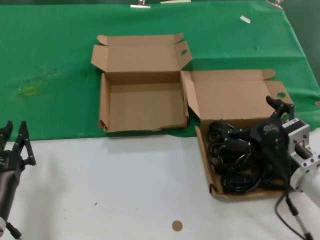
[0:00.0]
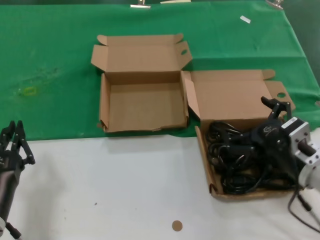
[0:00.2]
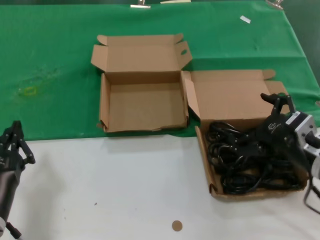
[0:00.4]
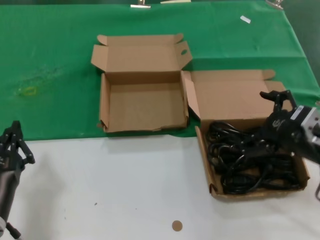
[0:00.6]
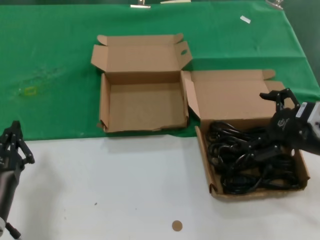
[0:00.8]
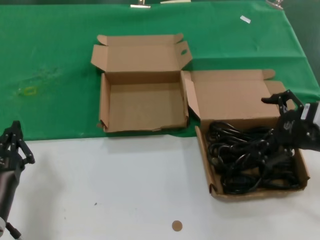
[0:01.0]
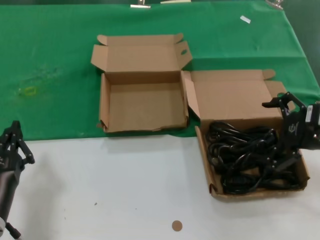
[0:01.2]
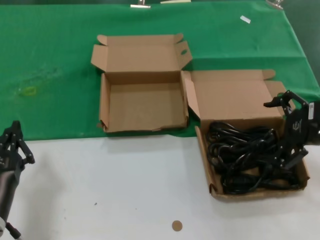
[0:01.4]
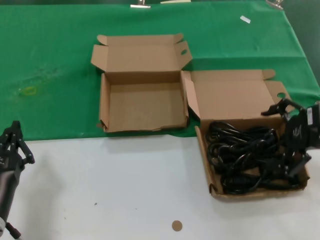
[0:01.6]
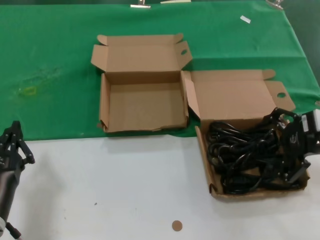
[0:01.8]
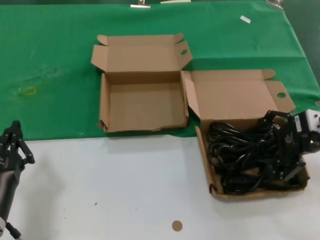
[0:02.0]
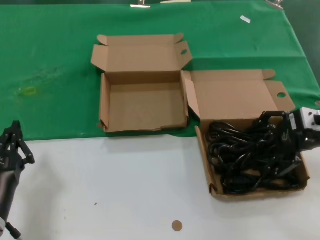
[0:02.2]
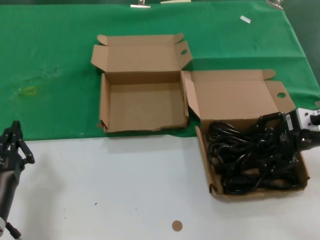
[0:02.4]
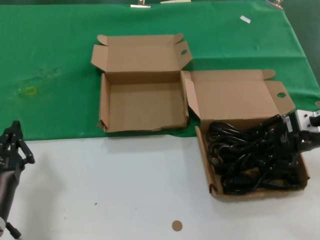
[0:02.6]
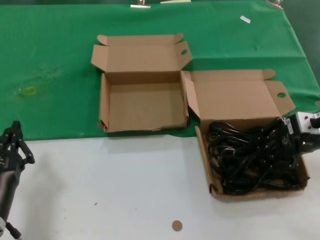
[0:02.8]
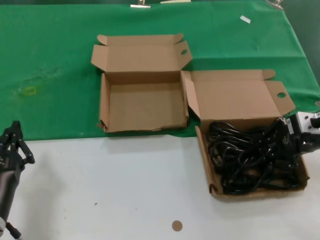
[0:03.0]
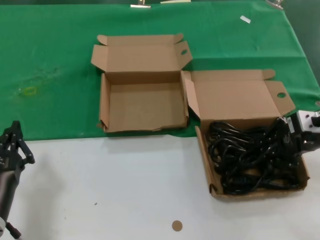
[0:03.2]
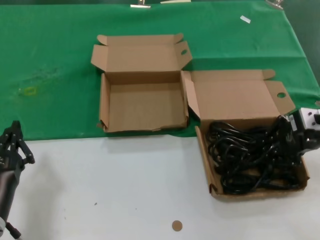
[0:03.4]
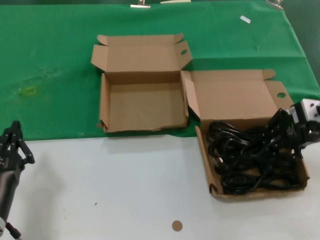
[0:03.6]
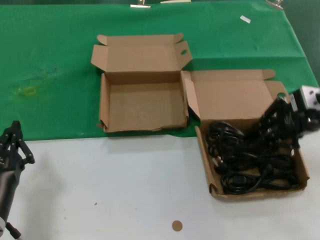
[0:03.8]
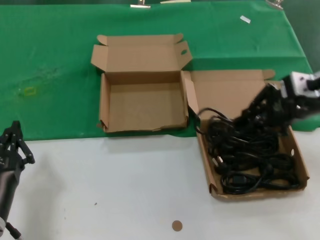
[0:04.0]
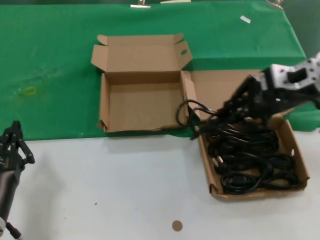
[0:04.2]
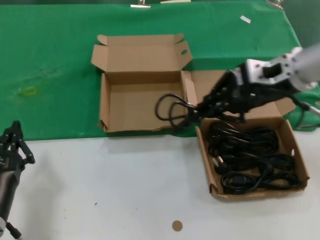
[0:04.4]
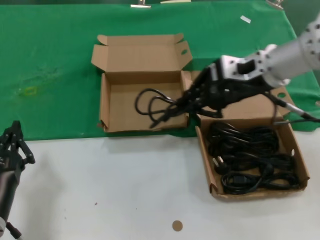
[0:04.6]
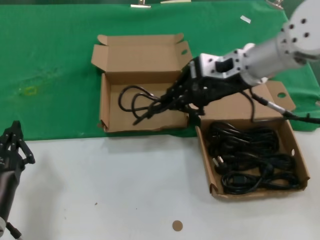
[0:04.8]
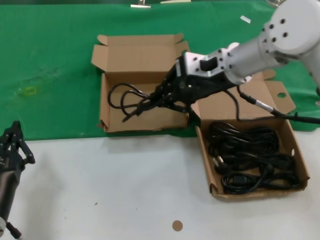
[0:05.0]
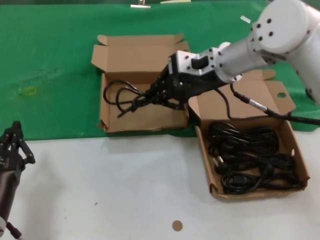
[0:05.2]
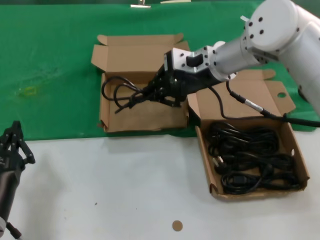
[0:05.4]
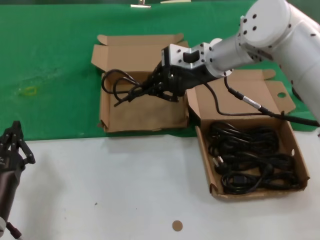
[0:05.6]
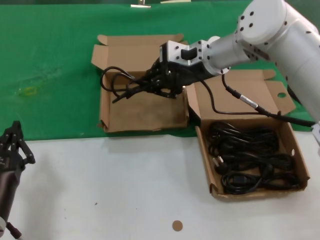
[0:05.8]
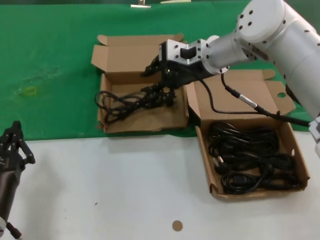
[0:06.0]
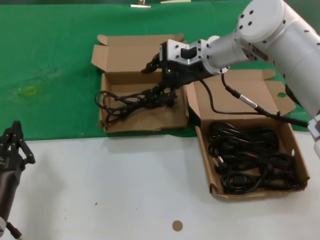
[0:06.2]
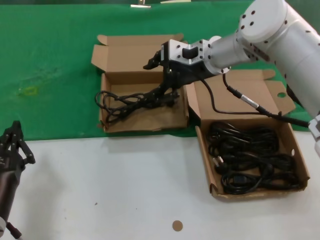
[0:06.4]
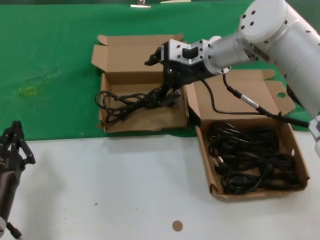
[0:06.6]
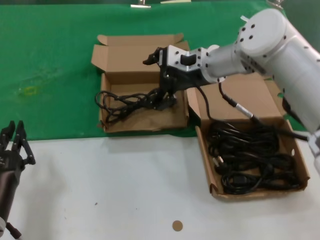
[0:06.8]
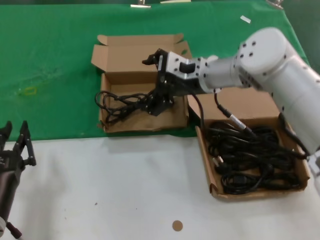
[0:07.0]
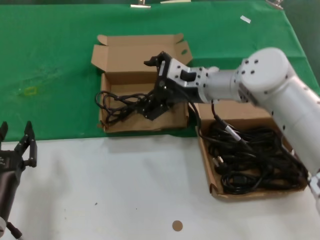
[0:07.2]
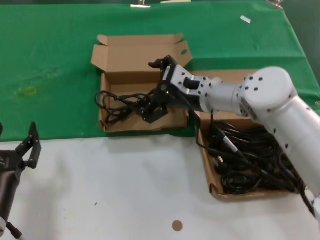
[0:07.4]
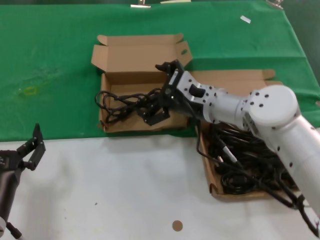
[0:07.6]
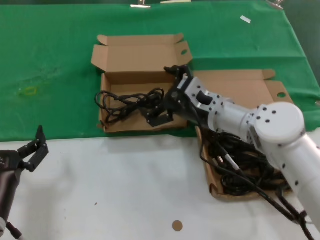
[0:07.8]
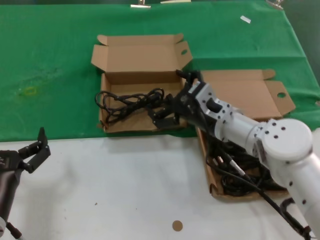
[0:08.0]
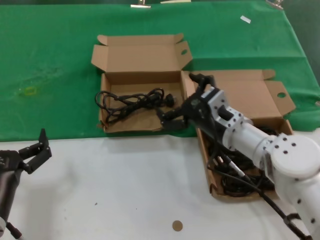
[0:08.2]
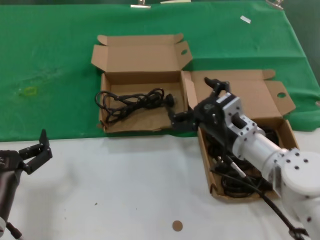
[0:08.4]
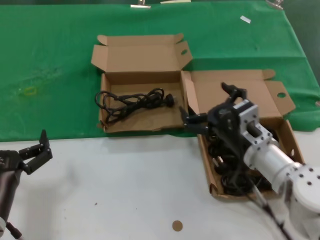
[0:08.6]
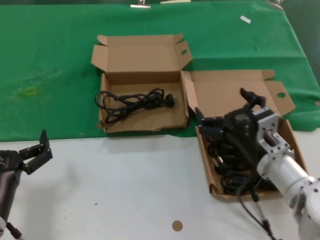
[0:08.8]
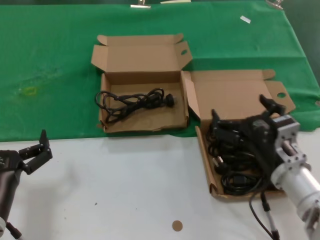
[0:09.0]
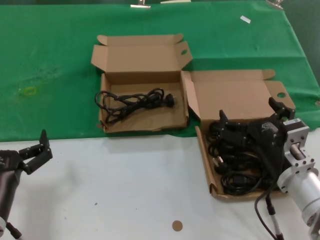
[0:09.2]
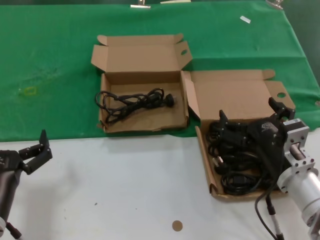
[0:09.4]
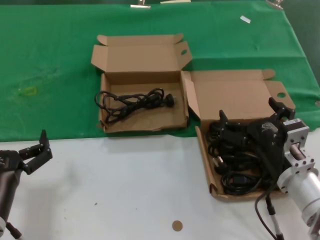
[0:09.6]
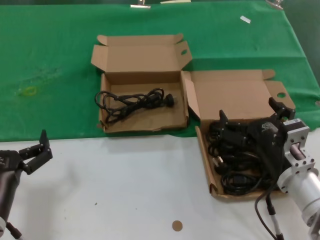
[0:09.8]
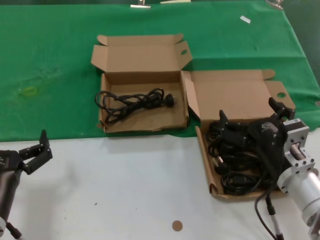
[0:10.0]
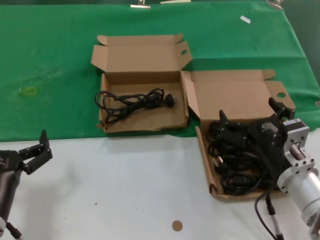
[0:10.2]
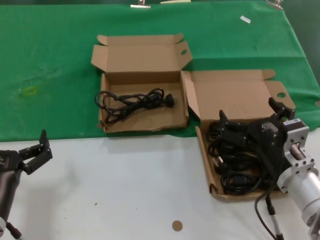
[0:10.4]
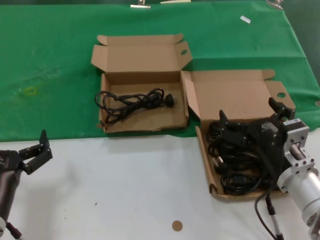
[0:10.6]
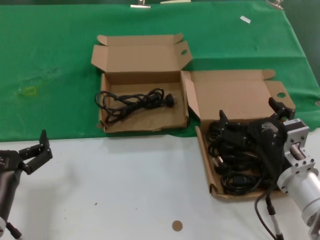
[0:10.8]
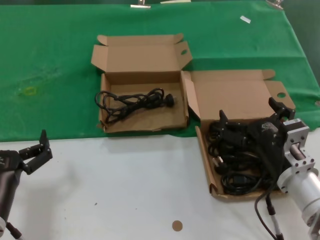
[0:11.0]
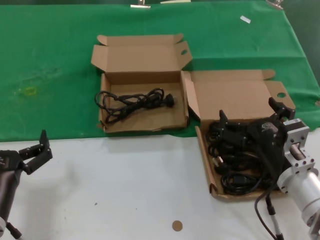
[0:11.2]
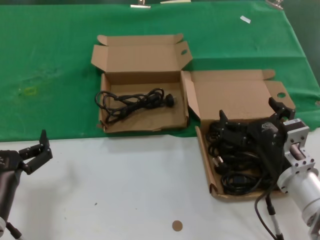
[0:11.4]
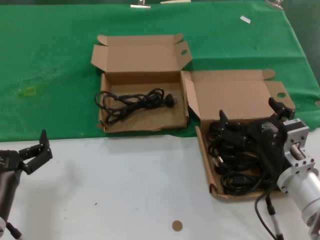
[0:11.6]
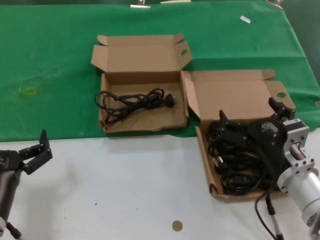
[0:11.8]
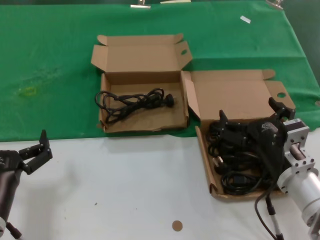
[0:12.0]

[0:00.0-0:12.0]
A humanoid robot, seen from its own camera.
Task of the whole recording: take the parts from the box containing them and put them into an empty box.
Step, 0:00.0 to 0:03.0: Grasp the data cable.
Step, 0:03.2 to 0:06.0: Place the data cable in the another box.
0:00.0 to 0:01.6: The right hand goes about 20 cm to the right, upward and forward.
0:01.6 to 0:03.0: The hands stay close to where they were, moving slightly.
0:03.0 to 0:04.4: The right hand travels to the left and upward by approximately 15 cm.
0:04.4 to 0:06.0: The right hand moves to the left and forward, about 15 cm.
0:06.0 to 0:07.6: The right hand moves downward and backward, roughly 15 cm.
0:07.6 to 0:09.0: The right hand travels backward, downward and to the right by roughly 20 cm.
0:09.0 to 0:10.4: The hands make only small movements.
0:10.4 to 0:12.0: Both hands stay put.

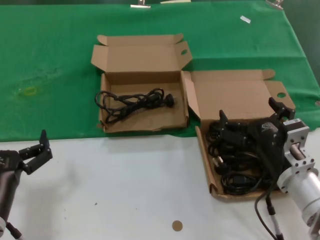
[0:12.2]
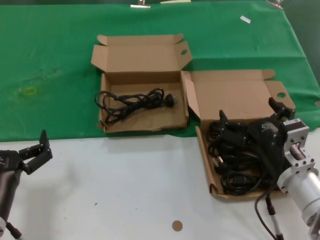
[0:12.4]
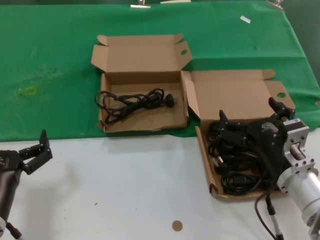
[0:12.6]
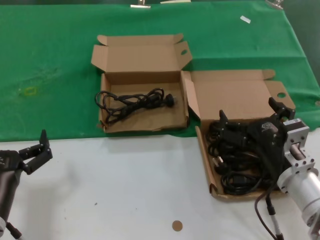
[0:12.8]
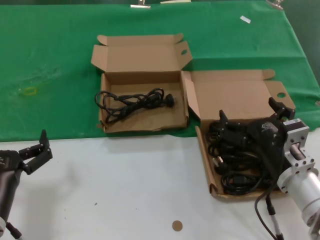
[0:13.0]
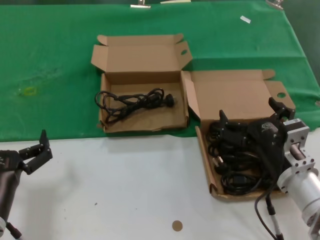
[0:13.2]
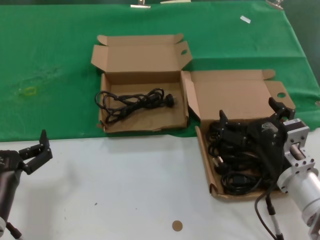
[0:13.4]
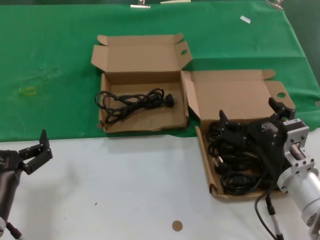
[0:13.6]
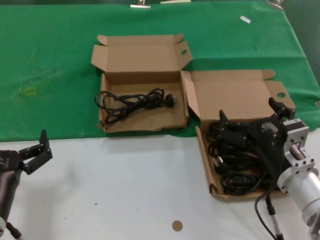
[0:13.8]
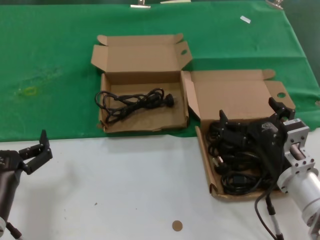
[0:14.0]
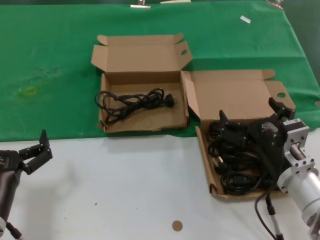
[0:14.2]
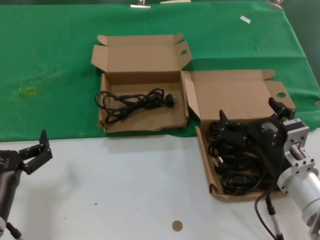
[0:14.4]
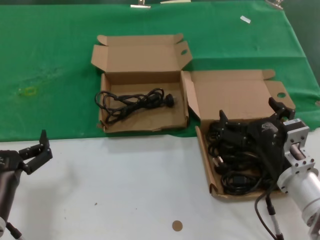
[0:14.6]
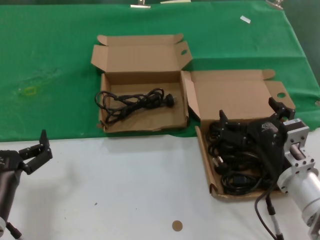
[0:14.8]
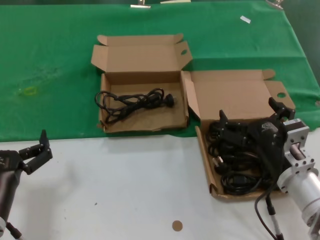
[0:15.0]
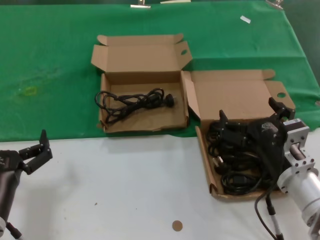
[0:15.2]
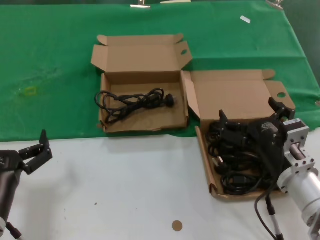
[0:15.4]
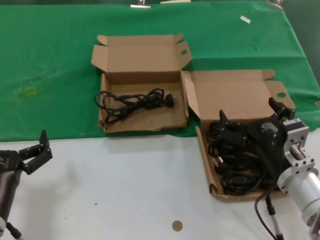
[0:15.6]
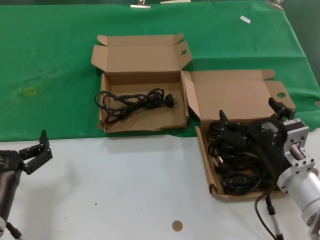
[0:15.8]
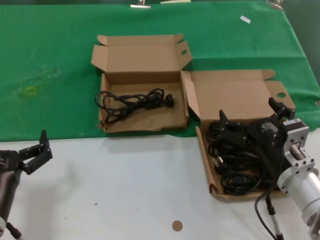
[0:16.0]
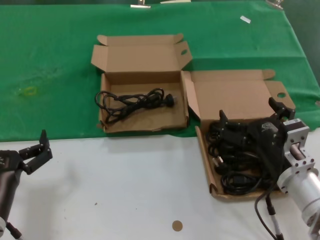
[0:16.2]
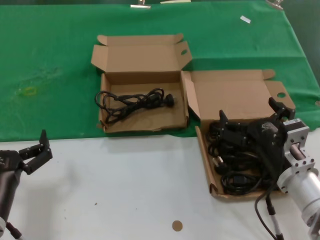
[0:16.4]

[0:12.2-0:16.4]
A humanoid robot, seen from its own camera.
Task of the whole recording: take the parts from the box containing them and put them into an empty box.
0:12.2 to 0:16.4: Neither hand changes place.

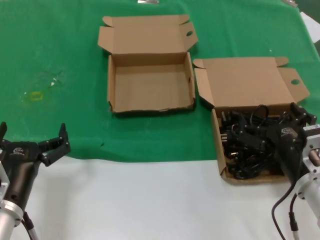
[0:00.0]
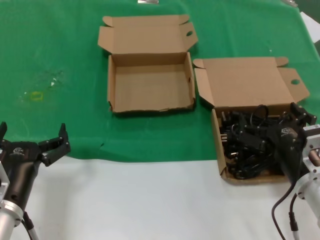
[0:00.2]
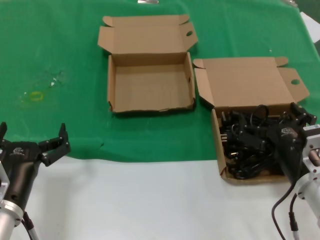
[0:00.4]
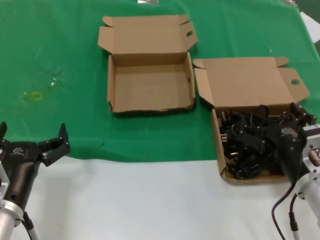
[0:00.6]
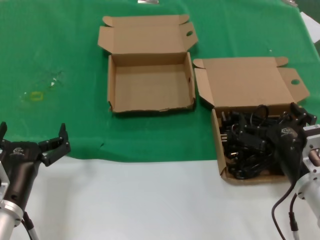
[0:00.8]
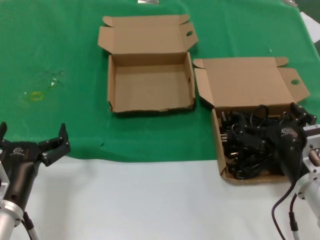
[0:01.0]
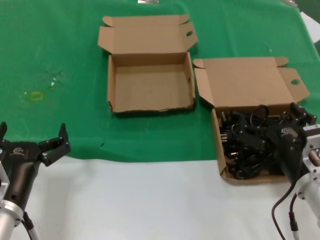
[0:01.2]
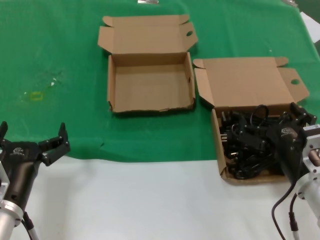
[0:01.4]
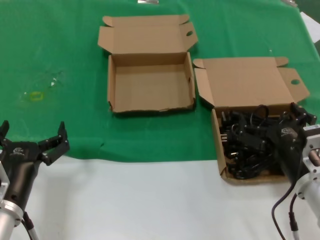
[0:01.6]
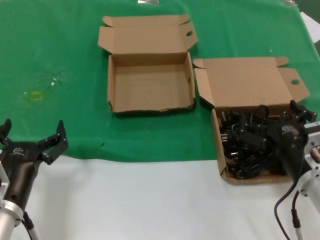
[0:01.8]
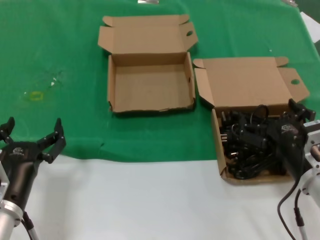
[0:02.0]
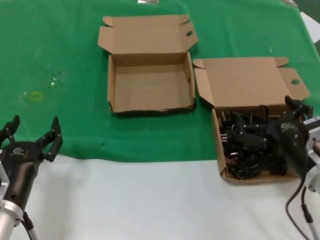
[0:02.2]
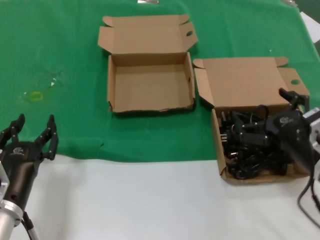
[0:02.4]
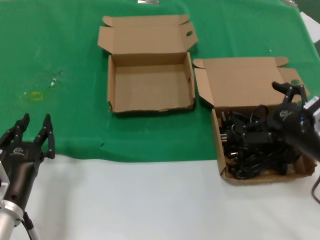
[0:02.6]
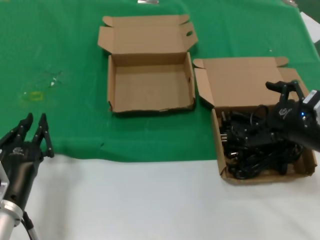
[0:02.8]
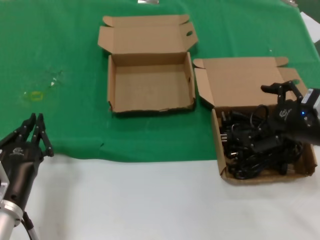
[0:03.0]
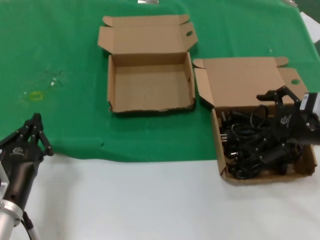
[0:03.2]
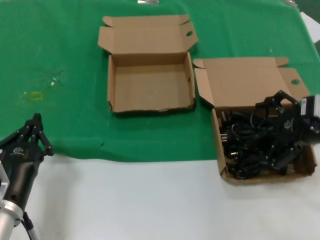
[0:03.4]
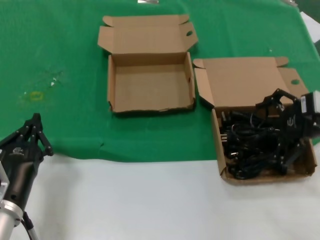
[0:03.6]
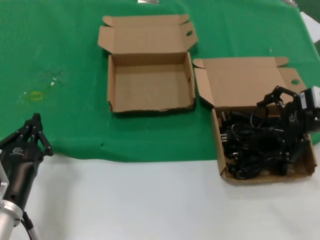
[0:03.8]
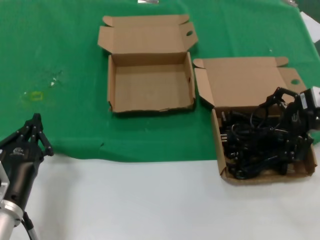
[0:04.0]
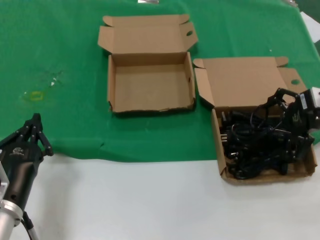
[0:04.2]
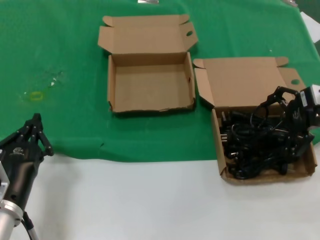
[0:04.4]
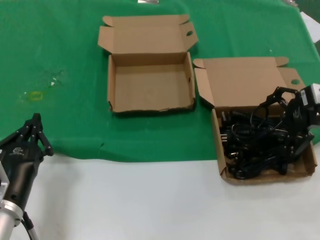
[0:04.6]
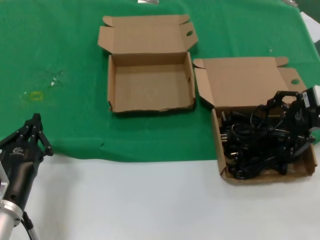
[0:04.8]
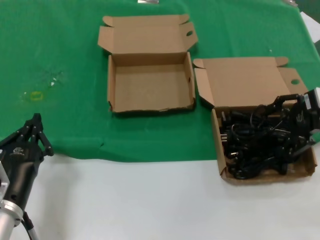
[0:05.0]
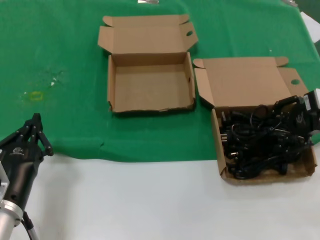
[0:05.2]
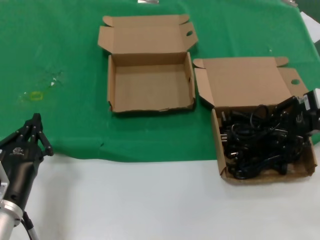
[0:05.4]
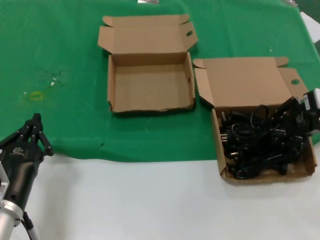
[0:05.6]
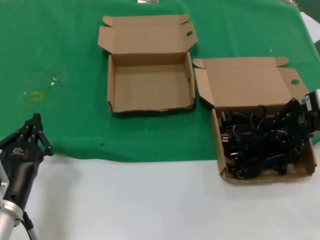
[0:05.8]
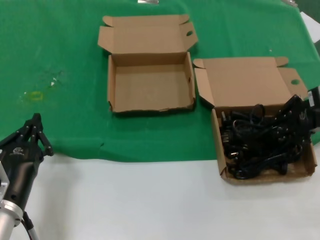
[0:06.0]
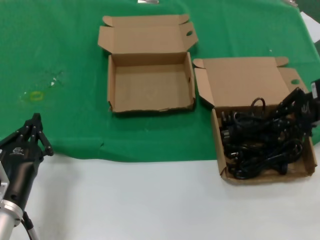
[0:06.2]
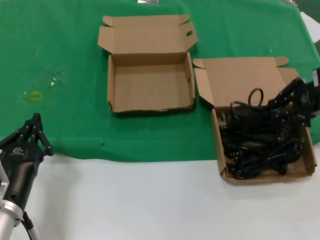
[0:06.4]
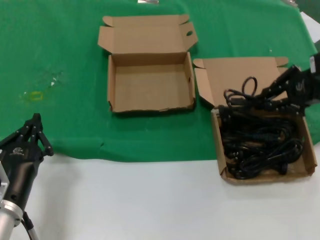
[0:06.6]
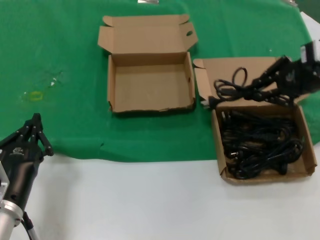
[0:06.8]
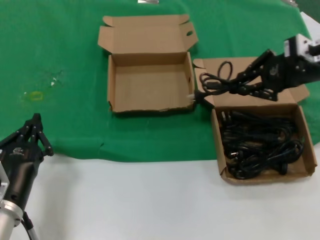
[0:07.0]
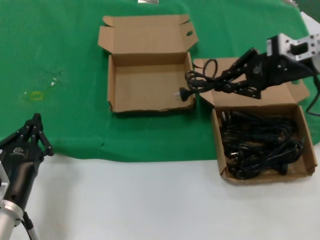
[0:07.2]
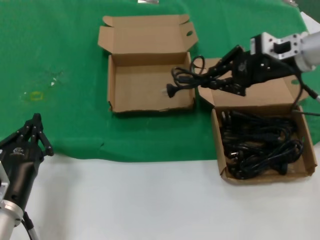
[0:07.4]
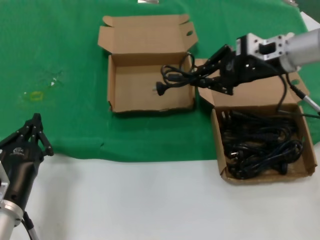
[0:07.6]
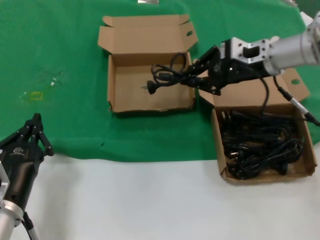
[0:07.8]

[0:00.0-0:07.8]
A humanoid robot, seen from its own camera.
Task of the whole recording: take the parts from the box containing them and put them into an empty box.
Step, 0:00.0 to 0:05.8: Grasp the data cable.
0:00.0 to 0:01.6: The two hands keep their place.
0:01.6 to 0:03.2: The right hand is displaced upward, to the right and forward by roughly 15 cm.
0:03.2 to 0:04.6: The right hand is displaced forward by approximately 10 cm.
0:04.6 to 0:06.2: There are only small adjustments of the hands.
0:06.2 to 0:07.8: The right hand travels to the left and forward by roughly 15 cm.
